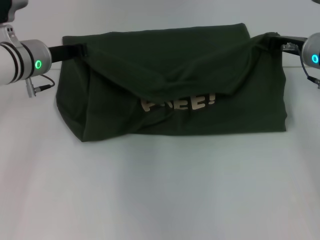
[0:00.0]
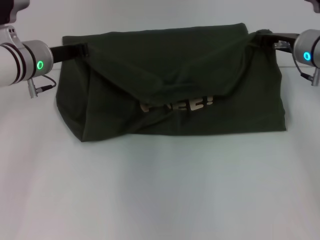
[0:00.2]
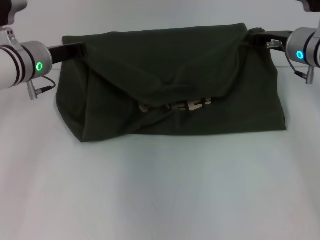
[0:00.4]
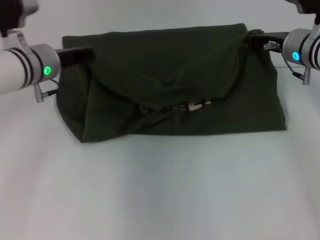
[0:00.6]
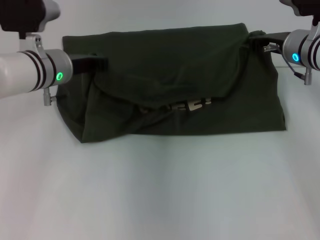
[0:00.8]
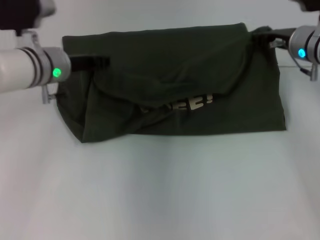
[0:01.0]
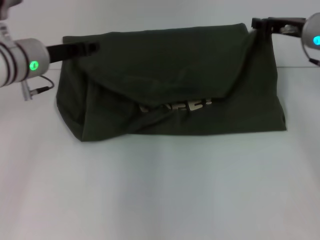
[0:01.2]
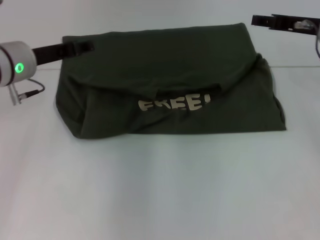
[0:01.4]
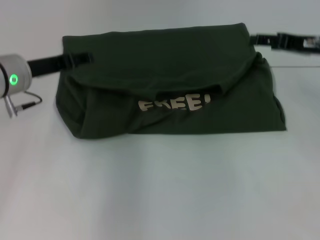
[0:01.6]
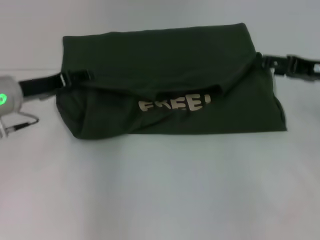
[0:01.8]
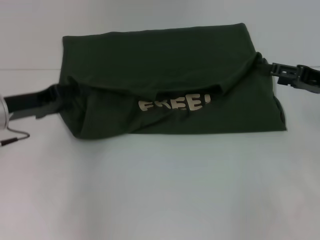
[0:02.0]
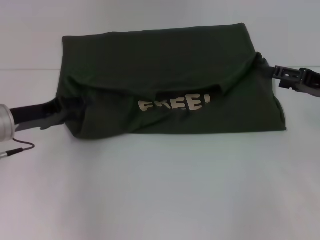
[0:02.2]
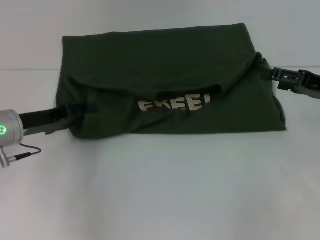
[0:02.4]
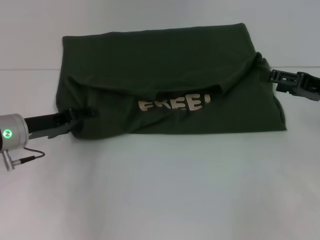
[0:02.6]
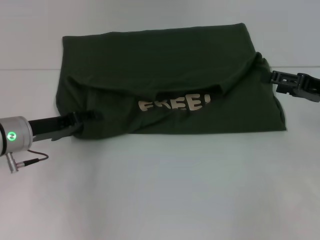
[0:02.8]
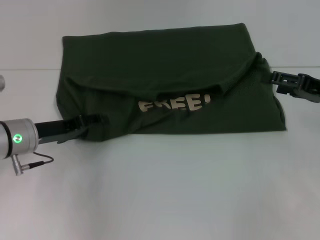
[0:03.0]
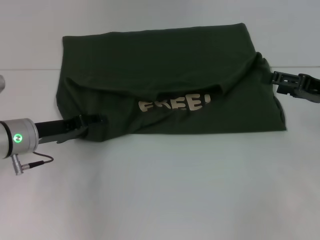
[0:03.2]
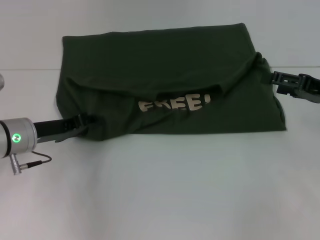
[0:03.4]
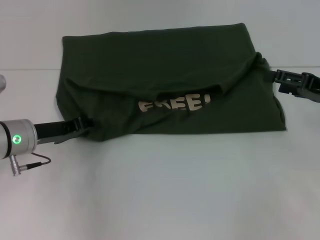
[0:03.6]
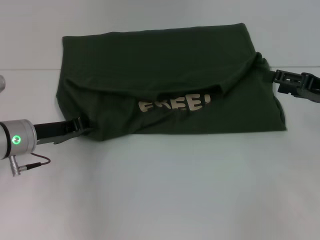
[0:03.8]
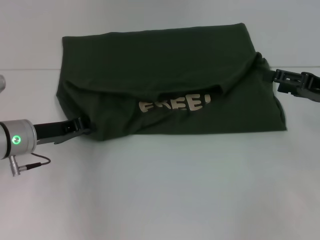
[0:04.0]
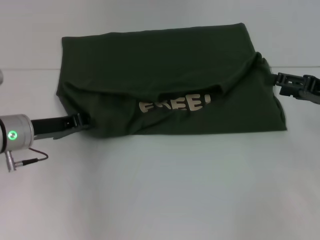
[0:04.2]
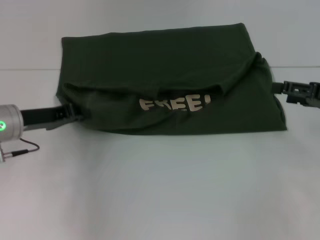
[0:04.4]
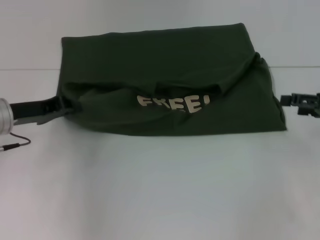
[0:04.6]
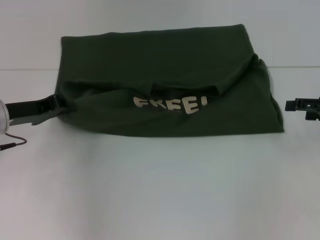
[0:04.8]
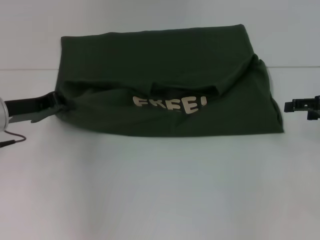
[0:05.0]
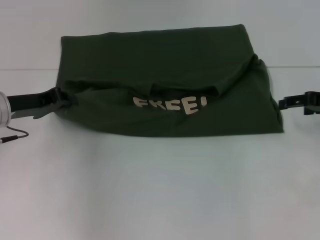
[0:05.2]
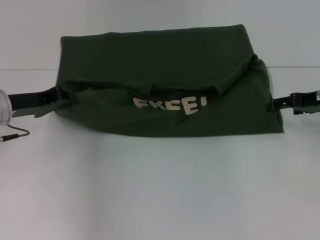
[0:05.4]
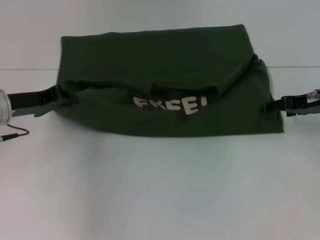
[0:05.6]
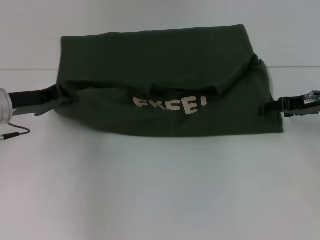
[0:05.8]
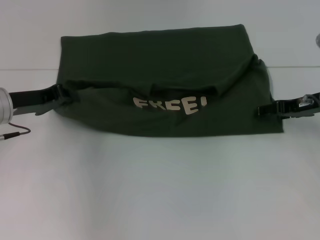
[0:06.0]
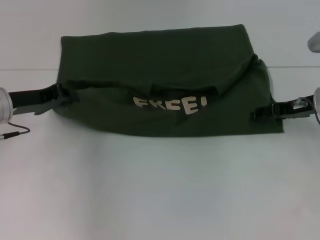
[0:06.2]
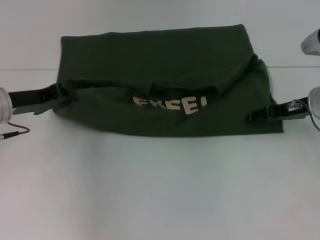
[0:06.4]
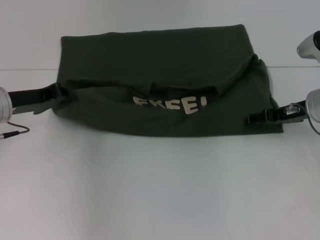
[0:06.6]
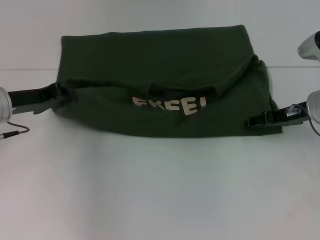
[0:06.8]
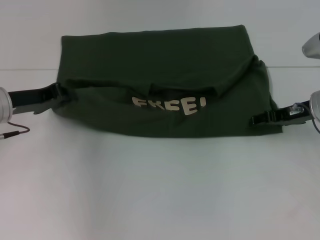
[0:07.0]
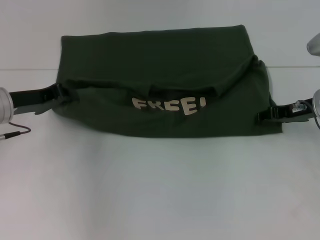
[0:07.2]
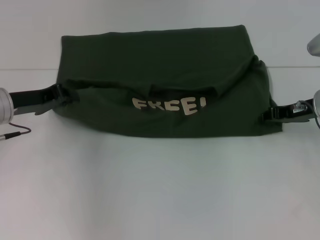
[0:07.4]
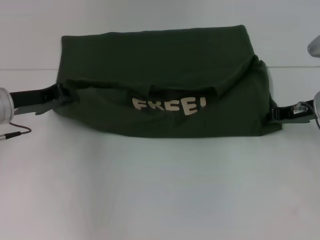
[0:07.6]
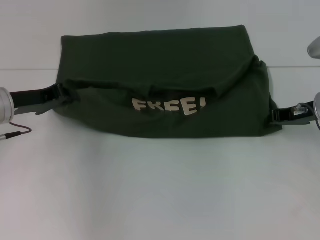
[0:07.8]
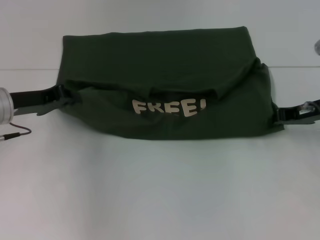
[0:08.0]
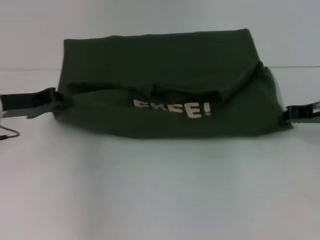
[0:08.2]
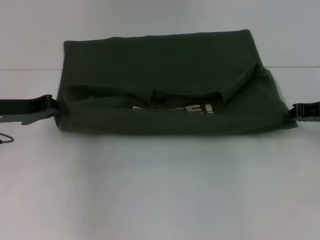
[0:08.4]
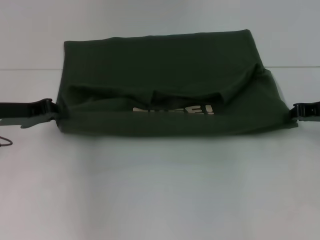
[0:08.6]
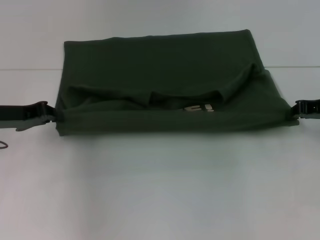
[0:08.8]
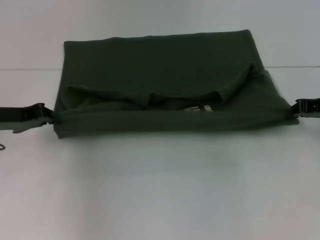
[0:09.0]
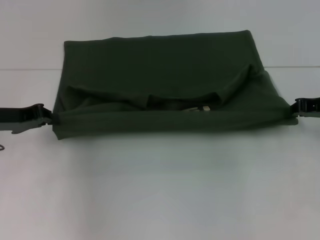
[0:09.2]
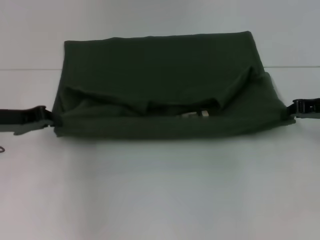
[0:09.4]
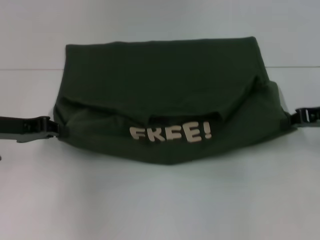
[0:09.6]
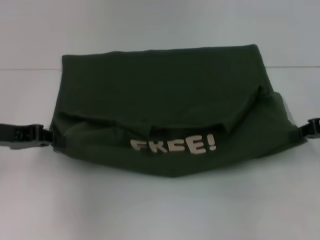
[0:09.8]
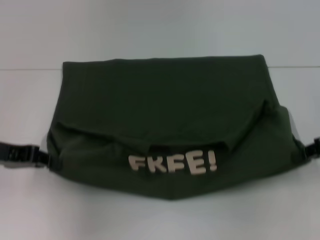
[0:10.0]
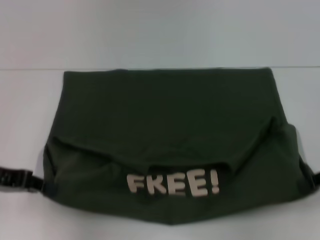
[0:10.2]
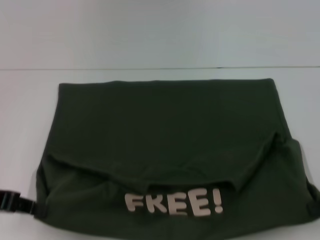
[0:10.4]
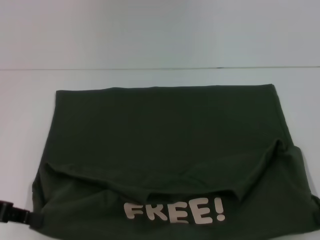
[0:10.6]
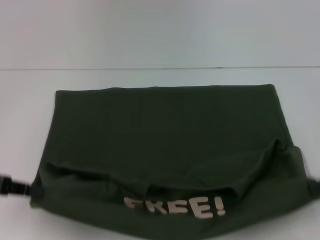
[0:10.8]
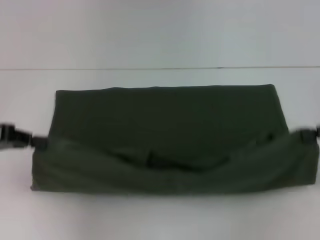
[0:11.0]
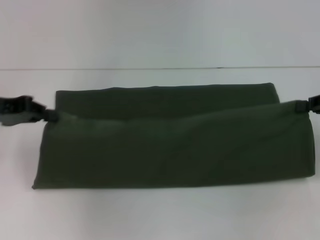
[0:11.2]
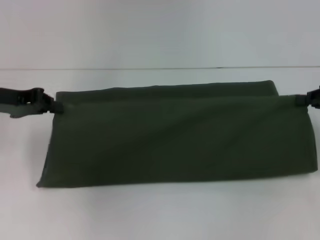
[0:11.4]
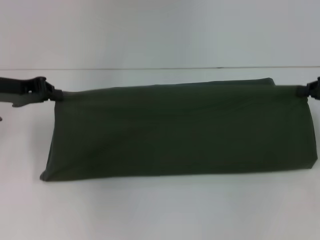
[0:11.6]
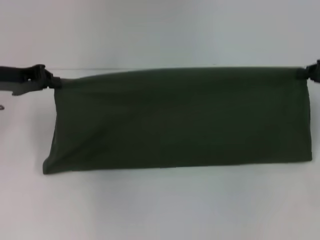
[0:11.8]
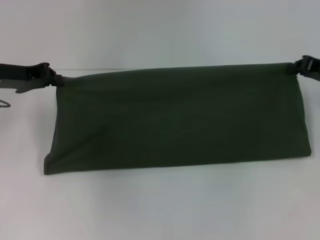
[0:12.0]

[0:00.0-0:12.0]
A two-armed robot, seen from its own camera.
Step, 0:01.4 to 0:10.4: Pull the clothes with your left hand.
Step, 0:01.4 to 0:10.4: Pull the clothes with your right hand.
0:00.0 to 0:01.6: The right gripper ends up roughly 5 cm from where it was, and opens, while the left gripper moves backward, approximately 5 cm, and opens.
0:01.6 to 0:03.0: The left gripper travels downward by about 10 cm; the right gripper goes about 5 cm backward.
0:03.0 to 0:04.4: The left gripper closes its fingers.
0:04.4 to 0:06.0: The right gripper moves forward and to the left, roughly 10 cm.
0:06.0 to 0:07.6: The right gripper closes its fingers.
0:07.6 to 0:09.0: The right gripper moves approximately 5 cm.
0:09.0 to 0:10.4: Both grippers move backward, roughly 10 cm.
0:10.4 to 0:12.0: The grippers both shift forward by roughly 15 cm.

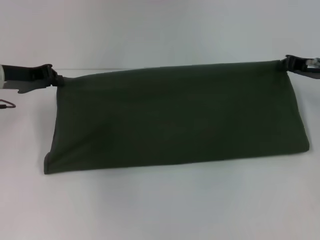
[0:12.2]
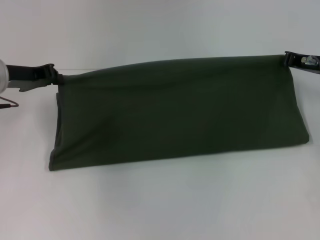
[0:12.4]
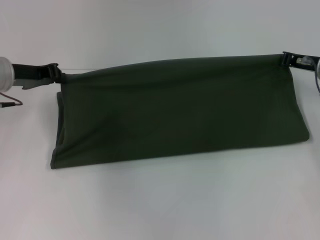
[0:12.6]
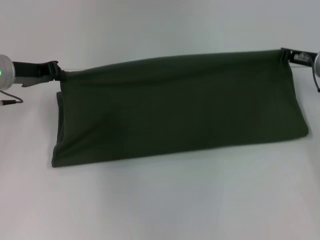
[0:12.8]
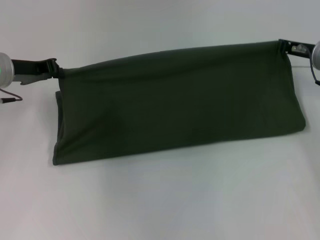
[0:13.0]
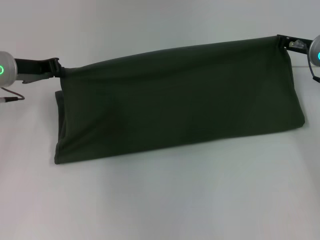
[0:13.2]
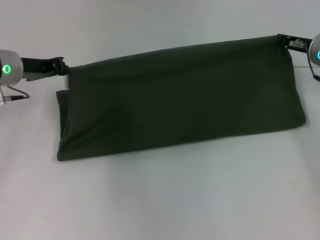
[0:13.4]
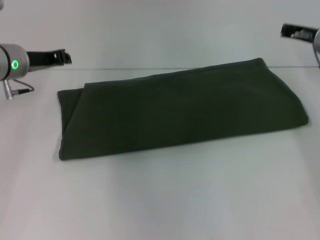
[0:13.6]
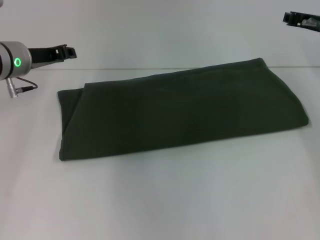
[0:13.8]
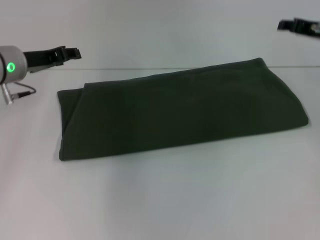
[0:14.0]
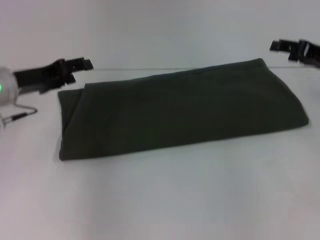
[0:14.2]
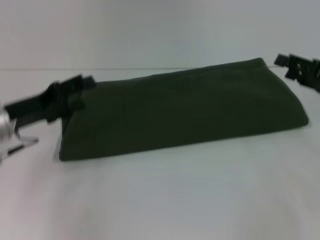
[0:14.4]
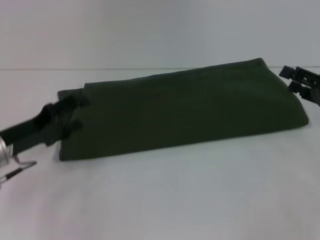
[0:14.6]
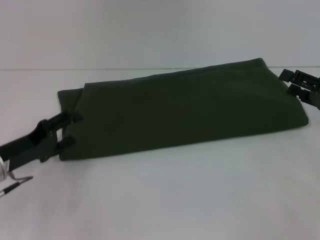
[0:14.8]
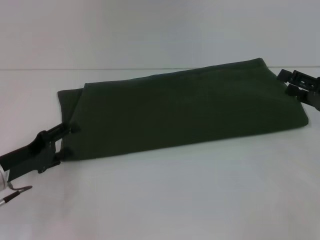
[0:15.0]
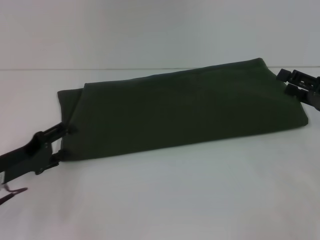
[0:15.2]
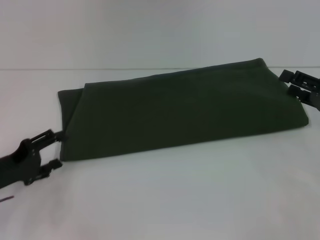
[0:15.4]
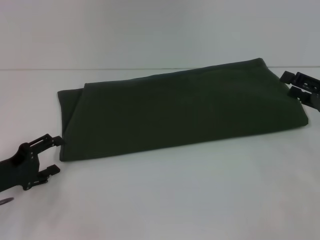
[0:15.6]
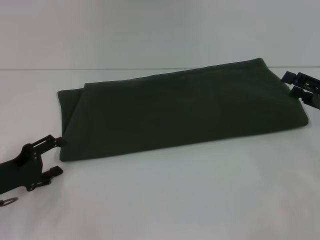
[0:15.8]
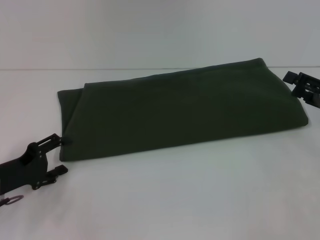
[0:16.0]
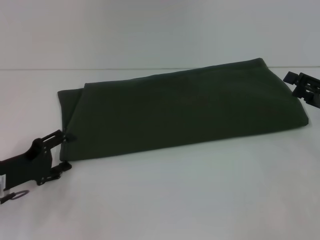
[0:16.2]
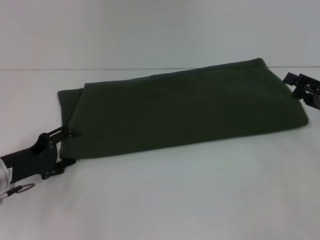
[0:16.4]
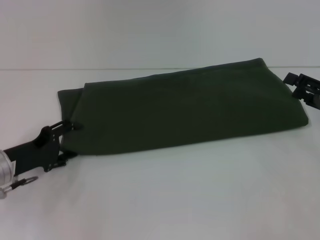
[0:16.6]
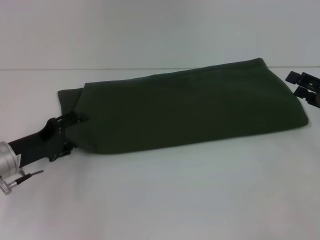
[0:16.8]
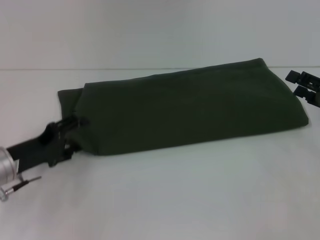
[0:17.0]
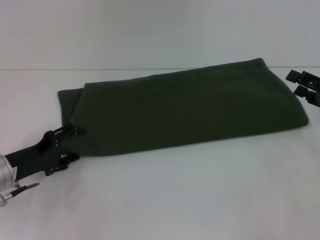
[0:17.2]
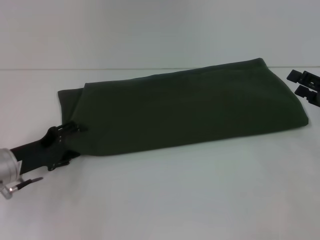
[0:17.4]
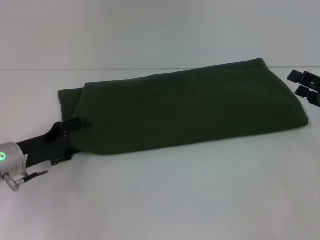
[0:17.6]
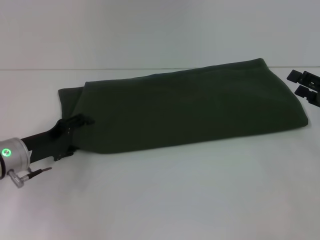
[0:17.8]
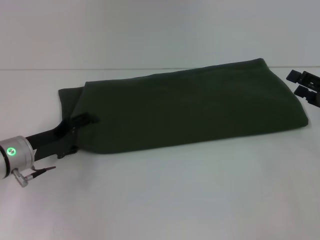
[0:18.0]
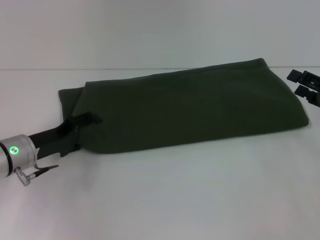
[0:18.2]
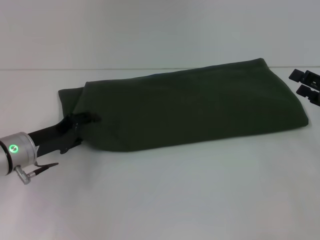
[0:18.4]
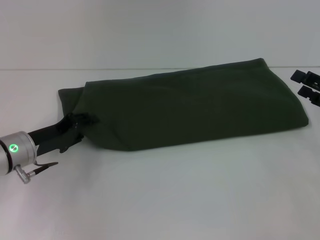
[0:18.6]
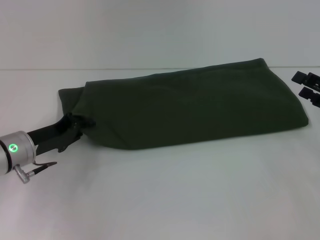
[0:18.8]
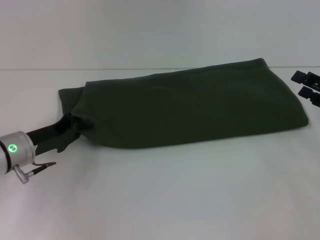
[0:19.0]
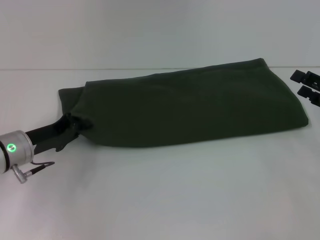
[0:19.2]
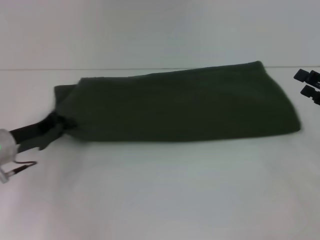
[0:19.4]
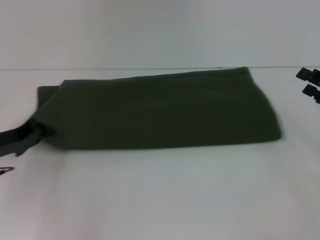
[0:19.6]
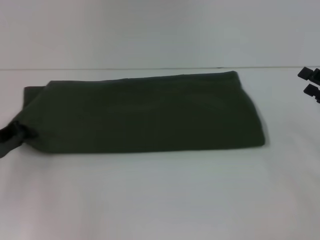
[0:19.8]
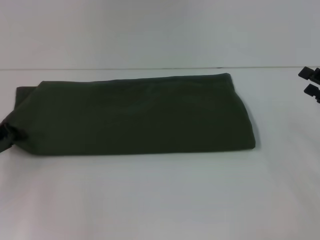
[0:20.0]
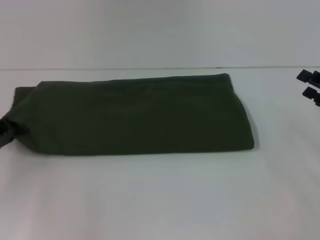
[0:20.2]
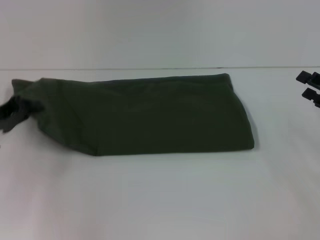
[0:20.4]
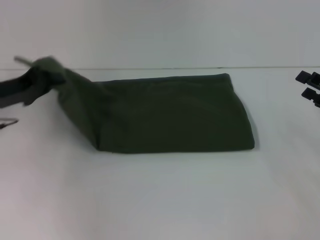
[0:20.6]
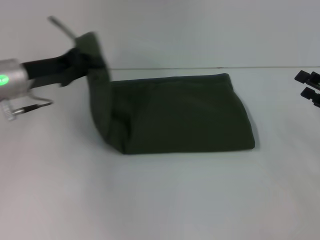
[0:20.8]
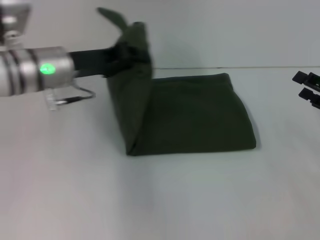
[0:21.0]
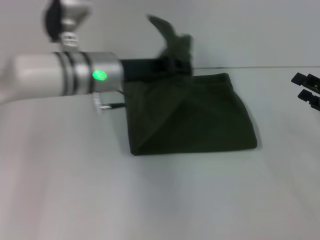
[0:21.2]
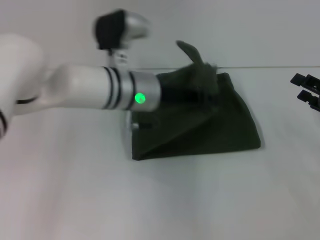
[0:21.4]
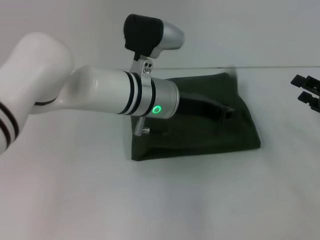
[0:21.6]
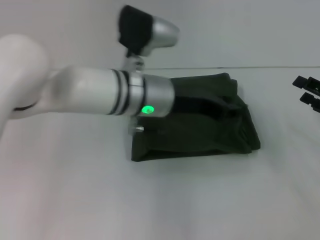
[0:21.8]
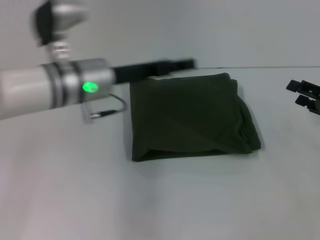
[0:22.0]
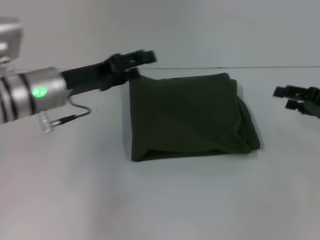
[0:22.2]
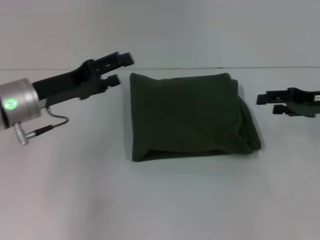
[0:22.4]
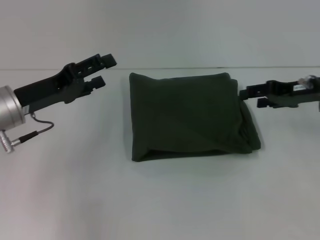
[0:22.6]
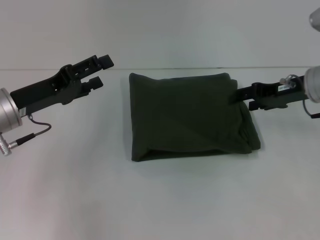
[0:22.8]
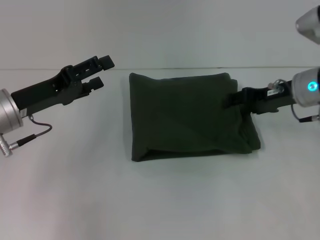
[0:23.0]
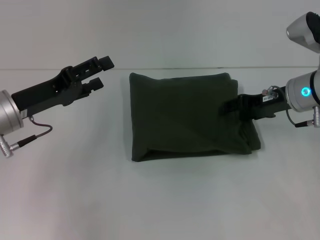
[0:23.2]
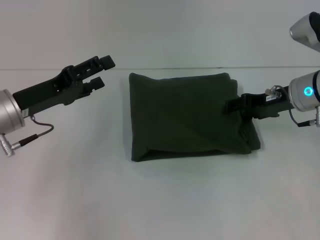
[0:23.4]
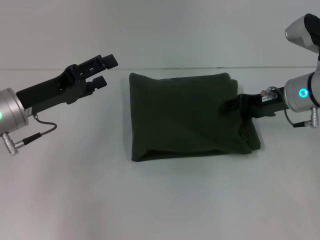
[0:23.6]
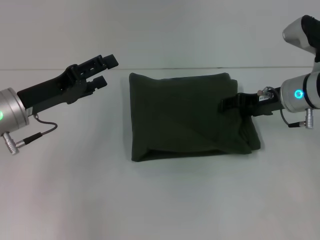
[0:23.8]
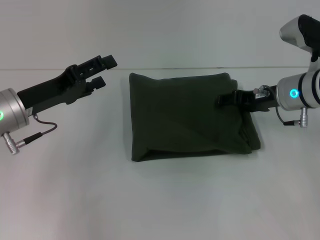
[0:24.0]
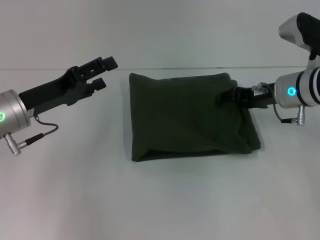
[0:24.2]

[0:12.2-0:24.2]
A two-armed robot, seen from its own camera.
Step, 0:12.2 to 0:21.6: Fold the clothes with your left hand.
0:12.2 to 0:13.8: The right gripper shifts by about 5 cm; the left gripper moves about 5 cm.
0:13.8 to 0:15.2: The left gripper shifts roughly 20 cm backward and downward, and opens its fingers, while the right gripper is displaced backward, downward and to the right by some 15 cm, and opens.
0:15.2 to 0:16.6: The grippers stay close to where they were, moving slightly.
0:16.6 to 0:18.2: There are only small adjustments of the grippers.
0:18.2 to 0:19.8: The left gripper goes roughly 10 cm to the left, and closes up.
0:19.8 to 0:21.2: The left gripper goes about 25 cm to the right and upward.
0:21.2 to 0:22.6: The right gripper heads forward, to the left and upward, covering some 10 cm; the left gripper goes approximately 15 cm to the left and backward, and opens up.
0:22.6 to 0:24.2: The right gripper is displaced to the left by roughly 5 cm.
